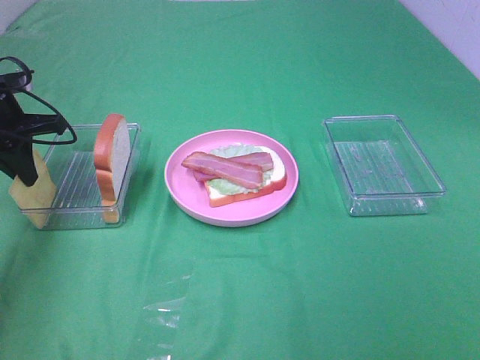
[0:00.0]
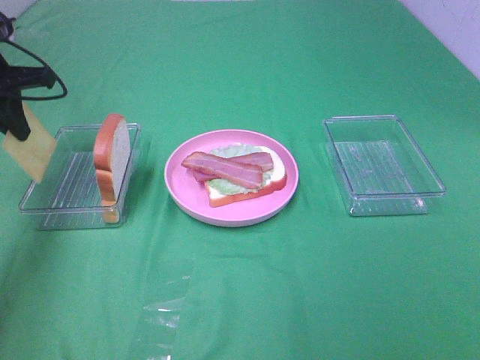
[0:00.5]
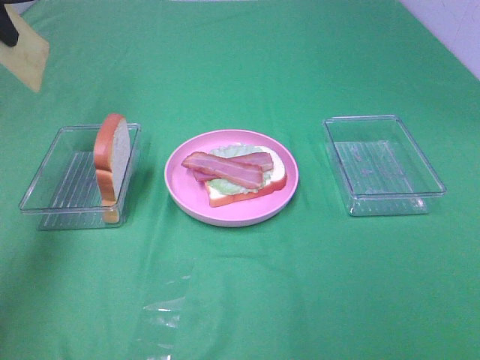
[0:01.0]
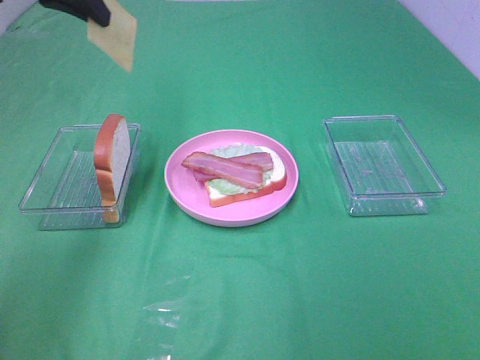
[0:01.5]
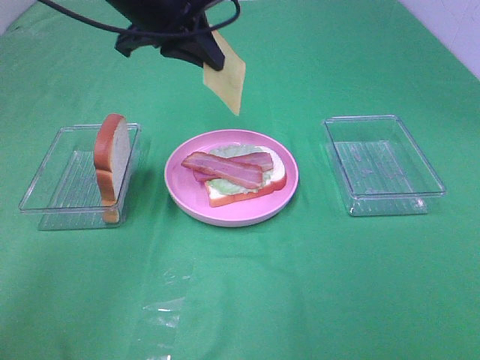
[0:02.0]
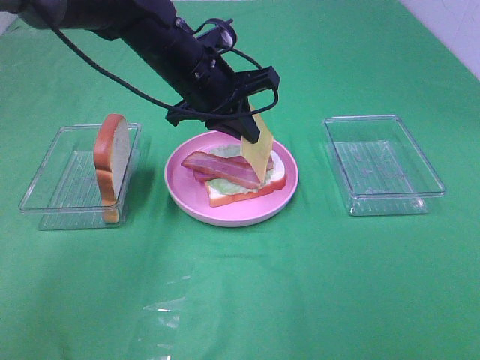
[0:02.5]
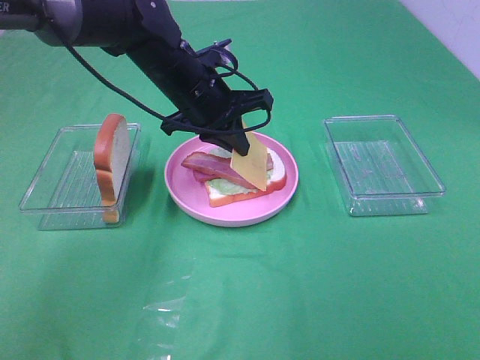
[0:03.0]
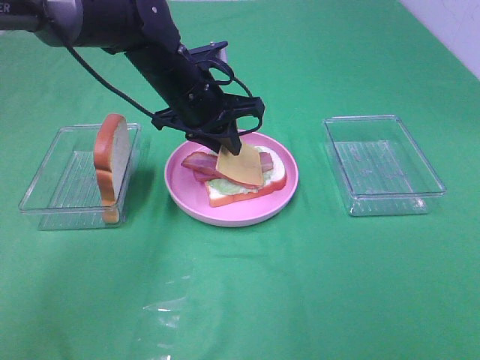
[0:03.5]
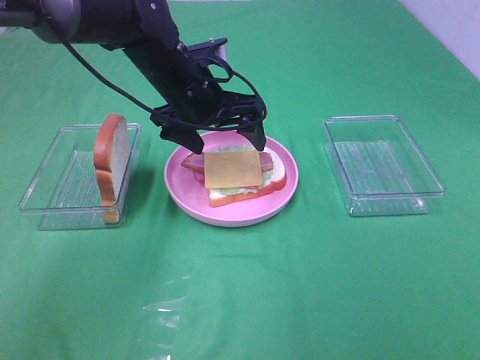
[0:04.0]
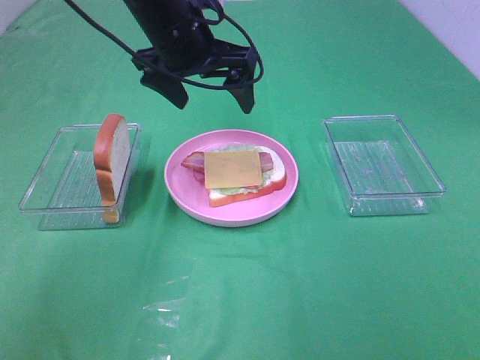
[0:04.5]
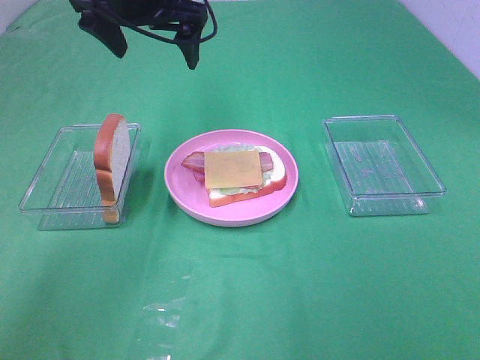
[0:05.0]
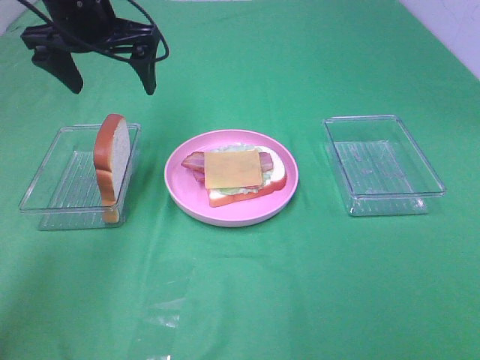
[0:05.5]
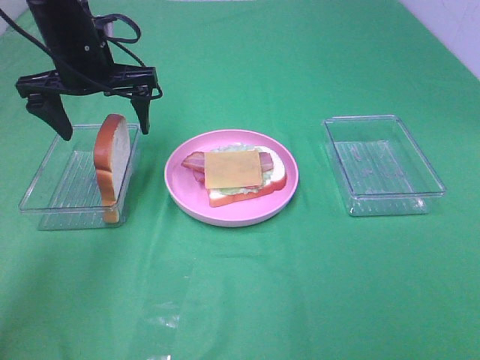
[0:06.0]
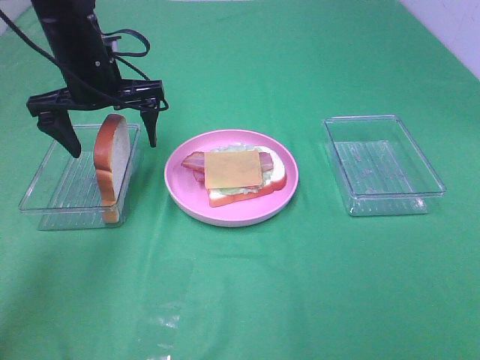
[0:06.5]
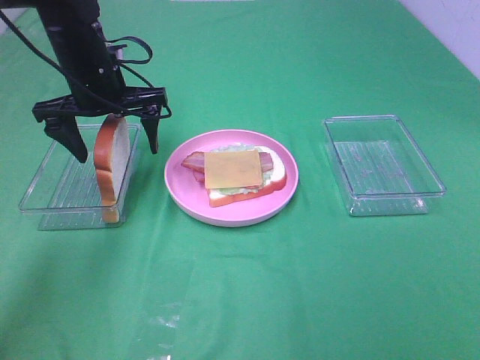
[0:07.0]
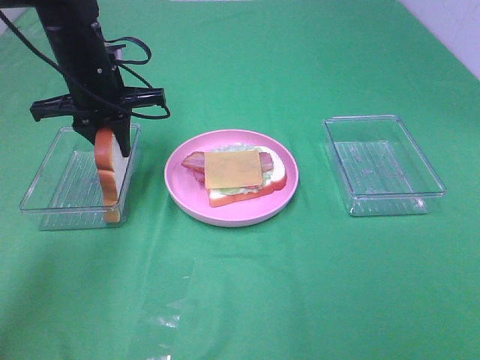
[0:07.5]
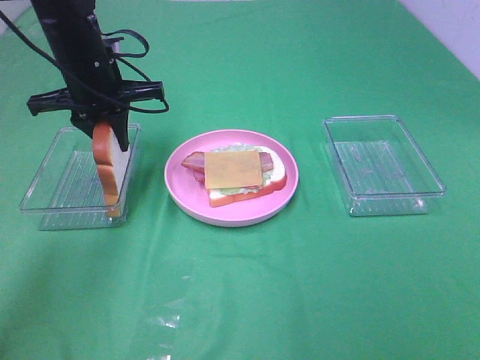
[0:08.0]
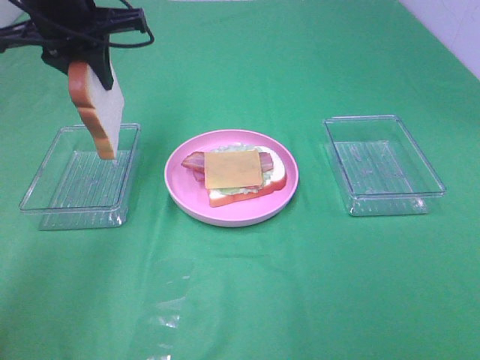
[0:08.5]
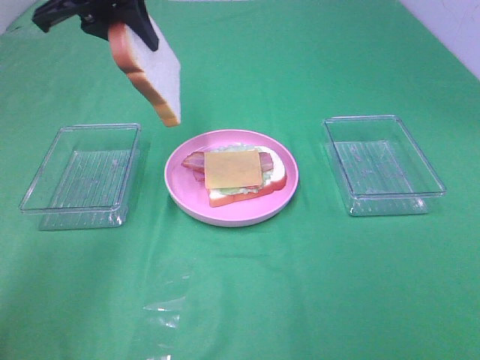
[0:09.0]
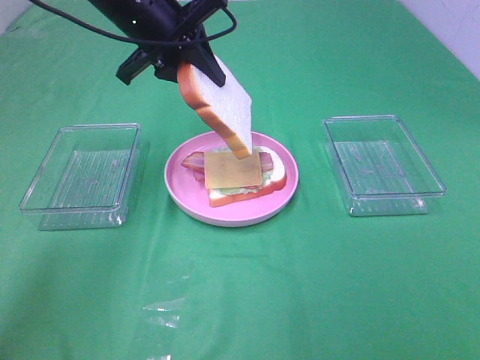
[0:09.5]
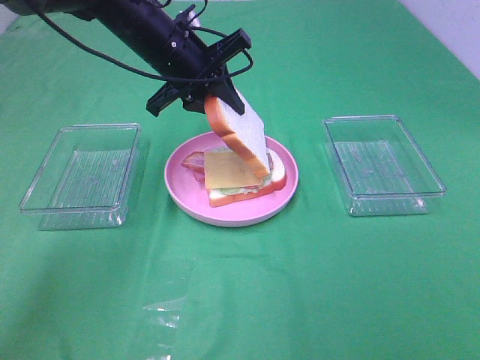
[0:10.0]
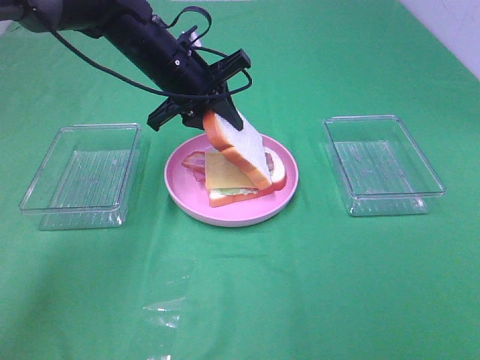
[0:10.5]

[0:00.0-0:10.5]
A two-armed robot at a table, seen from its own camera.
Task of the whole recording: Make sandwiches.
Step, 0:00.0 to 0:03.5: Left hand:place the cheese slice on top of the bacon.
Step, 0:04.0 to 0:07.5: Left hand:grab the bread slice.
0:00.0 to 0:02.0: The left gripper moves to the right and upward, roughly 25 cm.
0:02.0 to 0:04.0: The left gripper moves downward, roughly 10 cm, and opens up.
0:04.0 to 0:06.5: The left gripper is displaced to the left by about 10 cm, and reaches about 10 cm upward, then returns.
0:06.5 to 0:08.5: The left gripper shifts approximately 10 cm upward, and closes up.
0:08.5 to 0:10.5: The left gripper heads downward and to the right, covering about 15 cm.

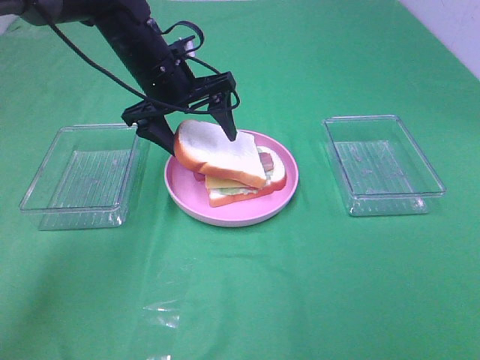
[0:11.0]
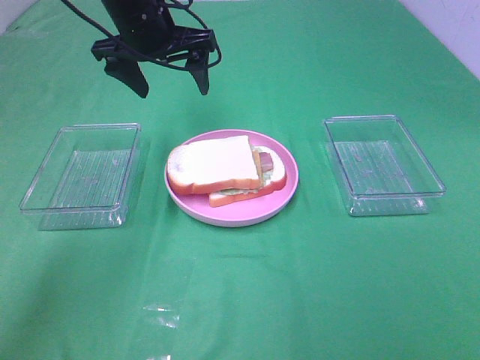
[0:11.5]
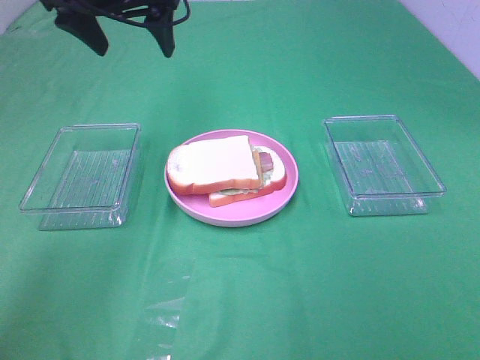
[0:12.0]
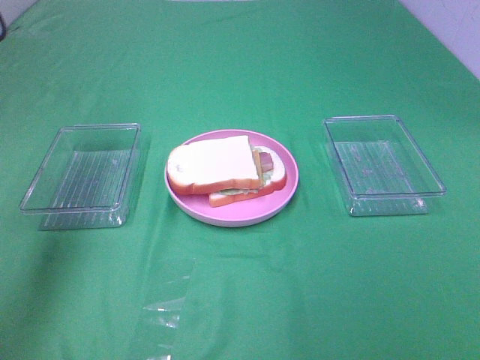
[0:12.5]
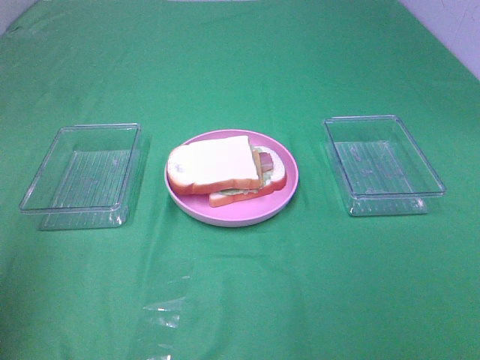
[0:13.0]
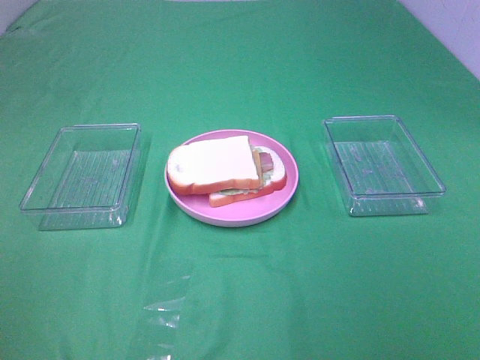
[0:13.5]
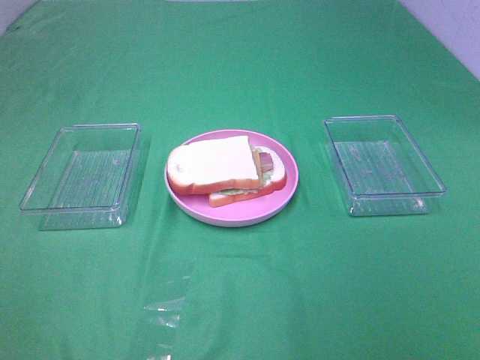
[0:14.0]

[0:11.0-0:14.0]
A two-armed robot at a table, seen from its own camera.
Task of the whole recording: Make sandwiches.
0:11.0 to 0:12.5: The left gripper travels to the left, upward and backward by approximately 30 cm.
0:12.5 to 0:14.0: The left gripper heads backward, covering about 30 cm.

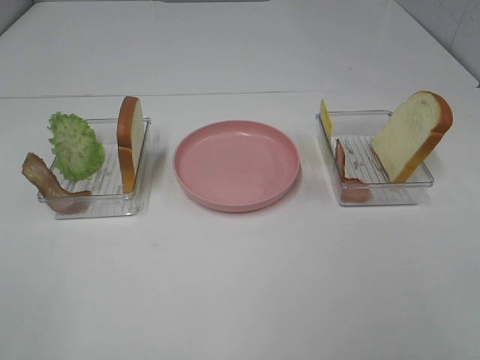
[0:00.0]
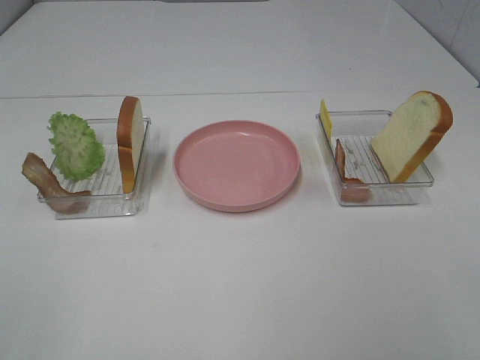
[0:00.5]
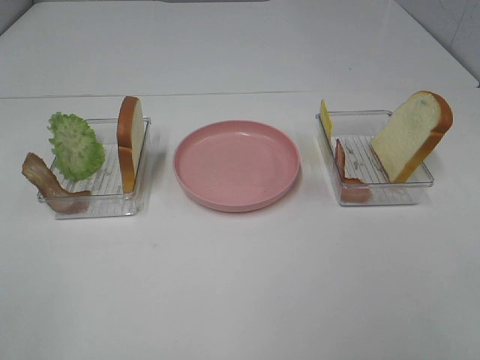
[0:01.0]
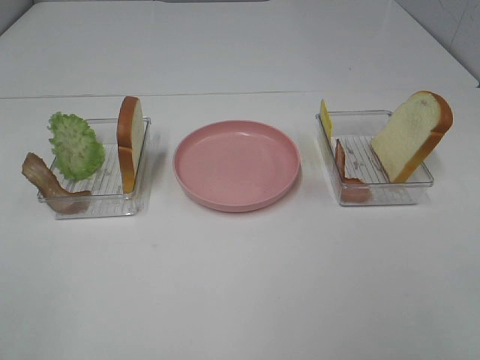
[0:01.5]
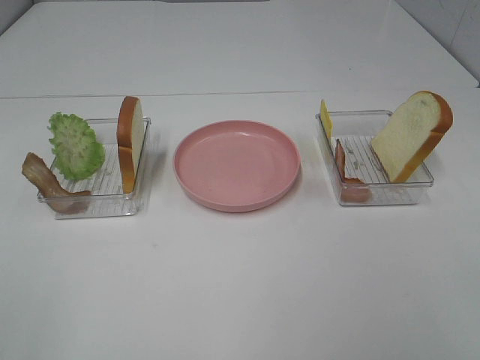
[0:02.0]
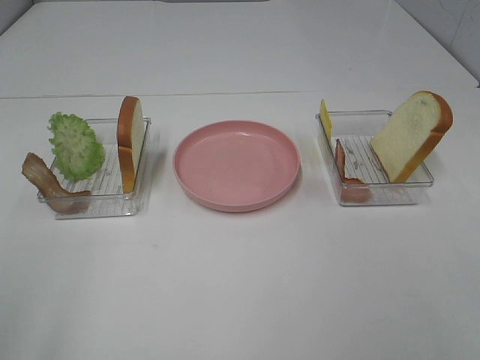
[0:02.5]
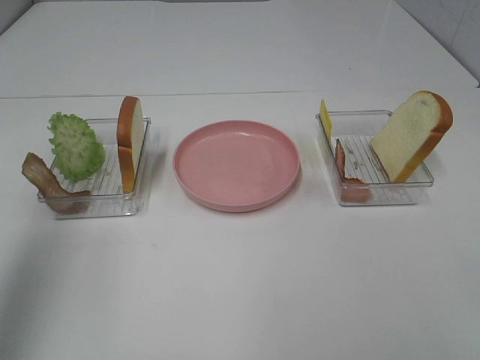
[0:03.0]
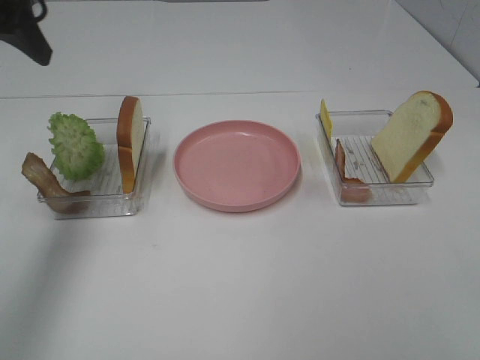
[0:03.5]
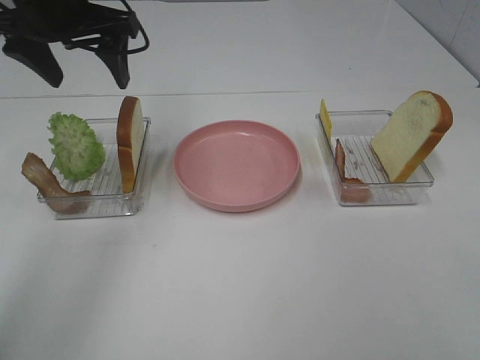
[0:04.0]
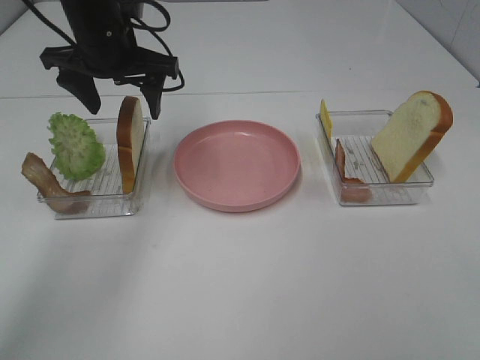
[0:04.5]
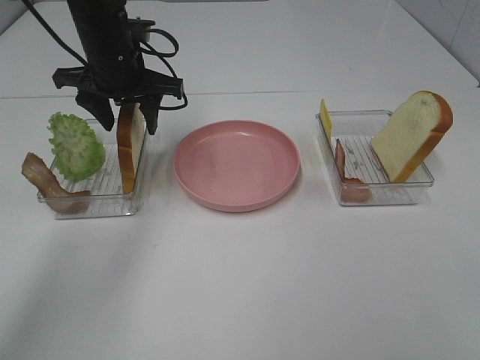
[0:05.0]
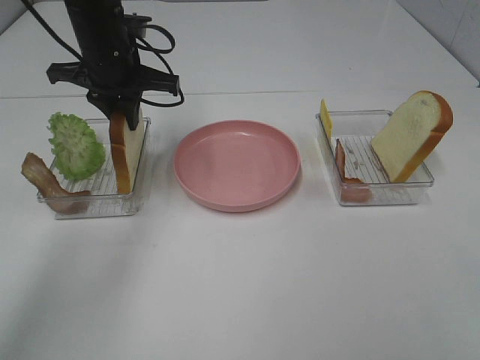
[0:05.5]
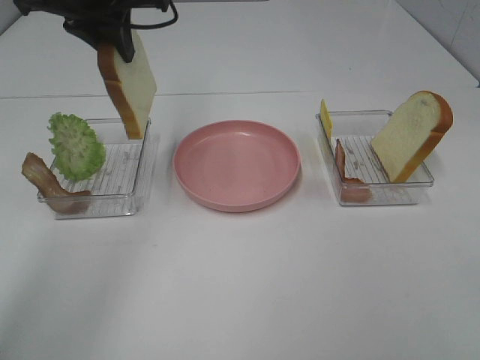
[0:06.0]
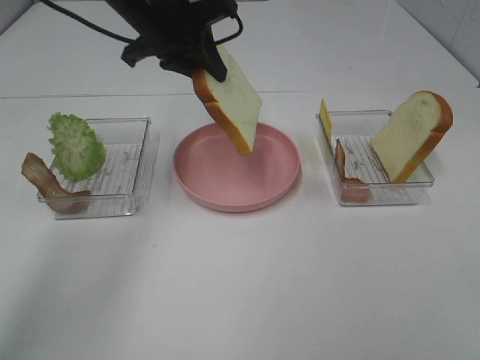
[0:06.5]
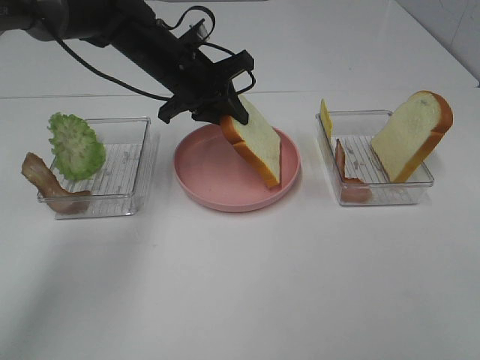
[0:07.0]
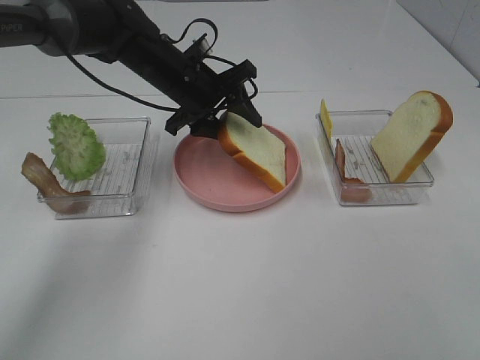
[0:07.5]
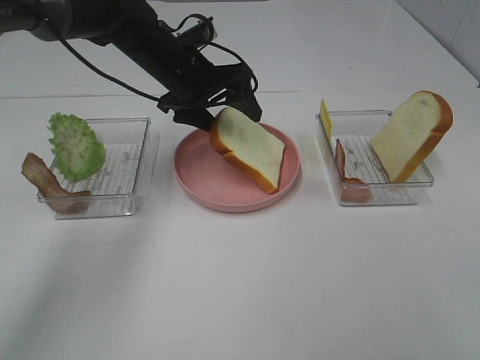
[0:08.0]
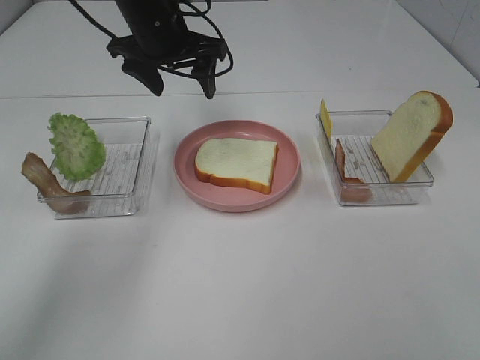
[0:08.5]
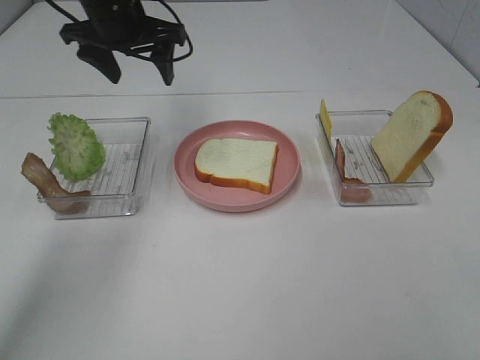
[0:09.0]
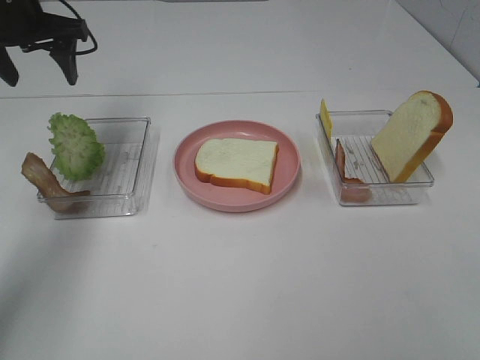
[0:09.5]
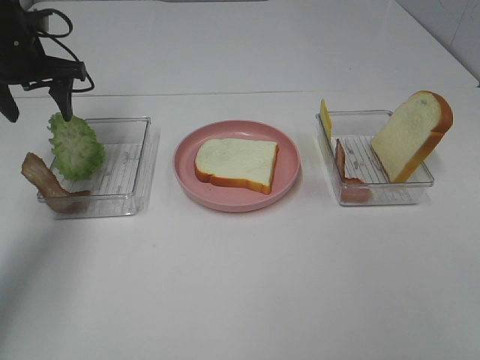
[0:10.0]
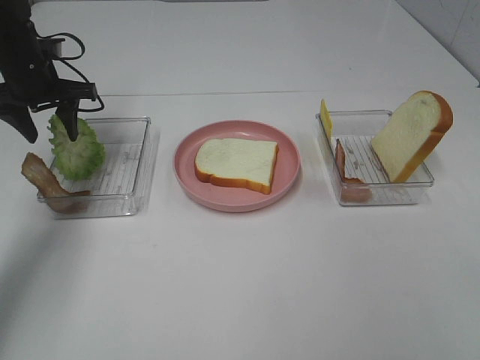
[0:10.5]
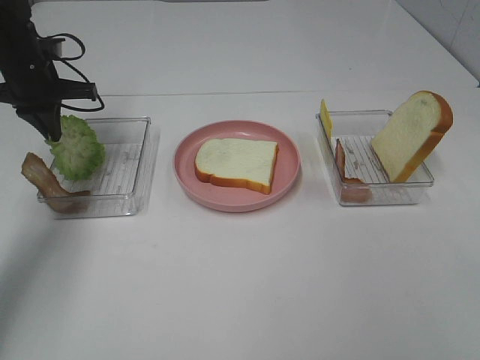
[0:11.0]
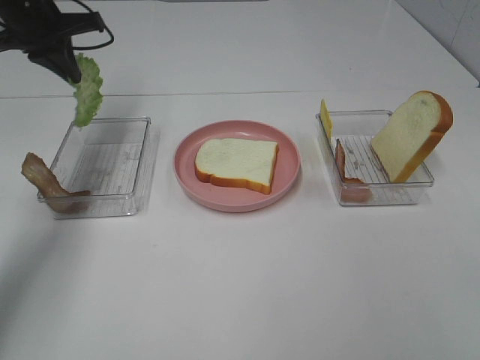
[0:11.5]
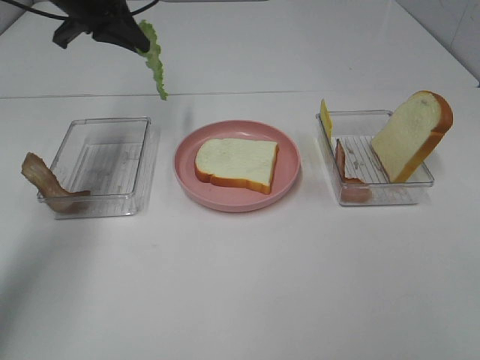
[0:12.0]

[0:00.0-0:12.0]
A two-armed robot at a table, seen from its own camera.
Task of the whole recording: Make sandwiches.
Step, 0:00.0 to 0:05.0: Left hand:grab the bread slice.
Step, 0:05.5 to 0:08.0: Left hand:place the bread slice on the plate.
Step, 0:08.5 to 0:10.5: Left hand:grab the lettuce slice.
0:00.0 to 0:02.0: The two grippers keep their place.
0:02.0 to 0:04.0: The left gripper travels forward by roughly 40 cm.
0:04.0 to 0:06.0: The left gripper travels downward and back again, about 10 cm each way, and closes its fingers.
0:06.0 to 0:08.0: The left gripper goes approximately 15 cm downward and to the right, and opens its fingers.
0:08.0 to 0:10.0: The left gripper moves to the left, some 20 cm.
0:10.0 to 0:12.0: The left gripper goes approximately 10 cm to the right and upward, and closes its fingers.
